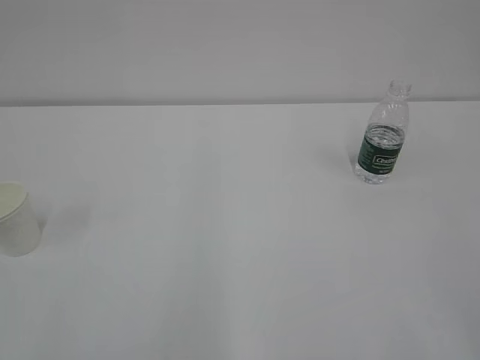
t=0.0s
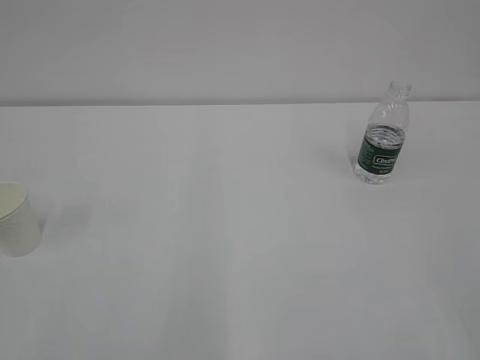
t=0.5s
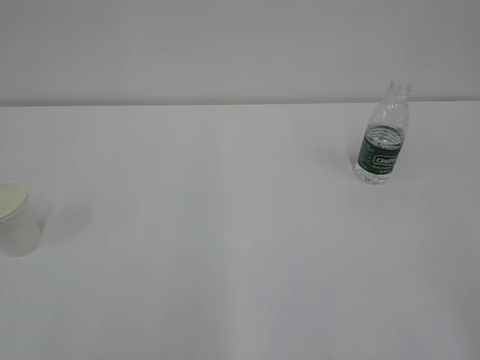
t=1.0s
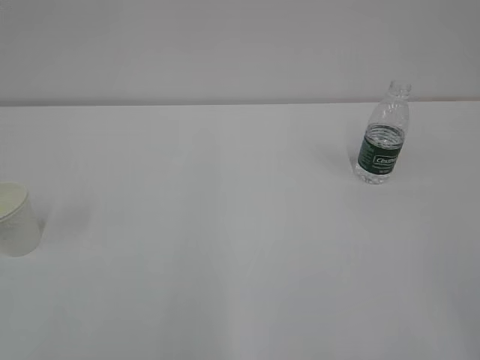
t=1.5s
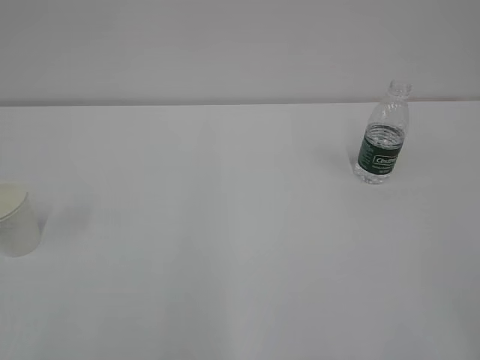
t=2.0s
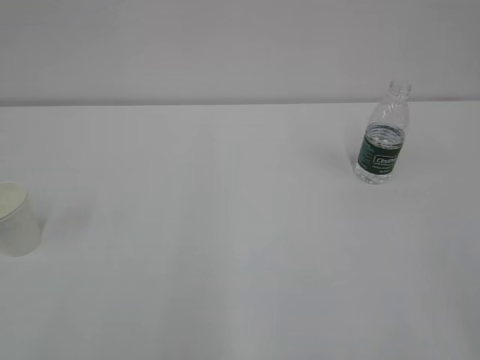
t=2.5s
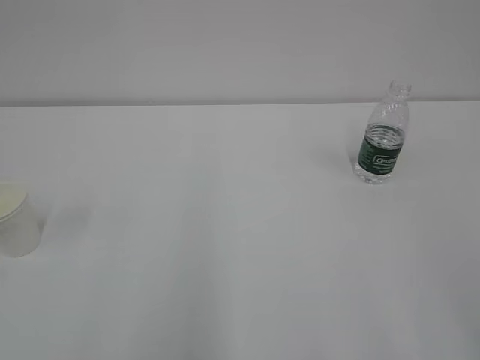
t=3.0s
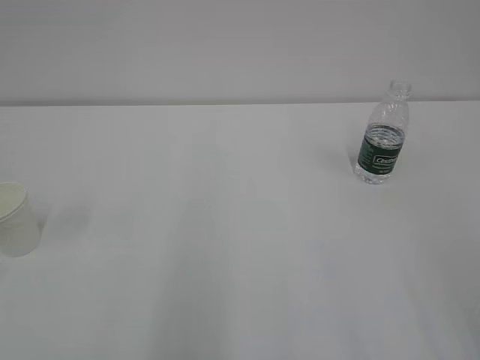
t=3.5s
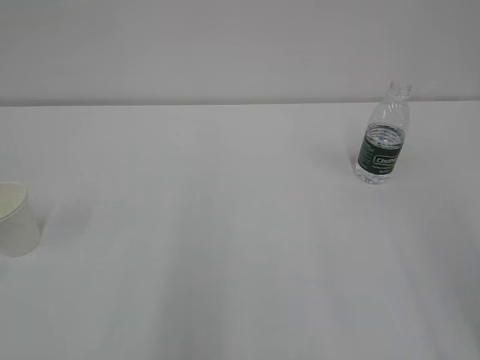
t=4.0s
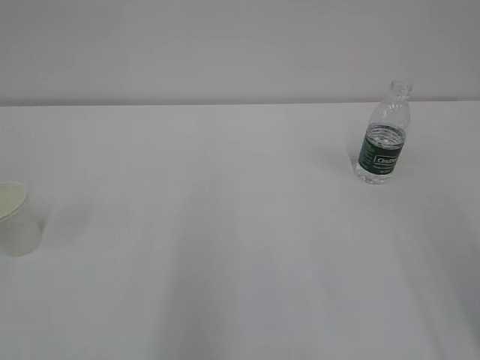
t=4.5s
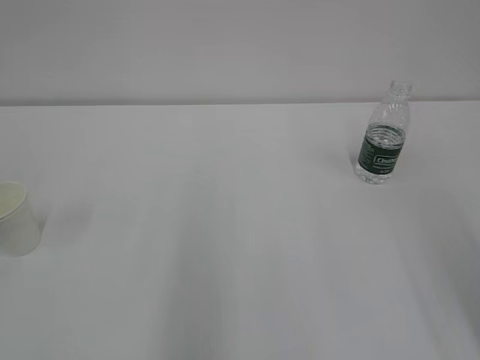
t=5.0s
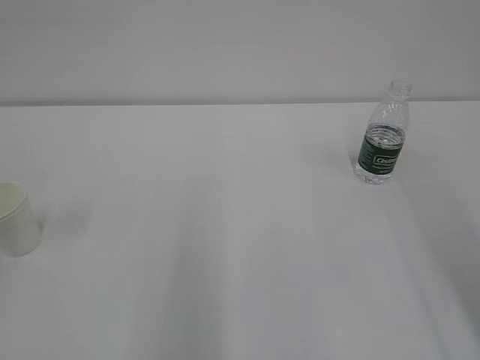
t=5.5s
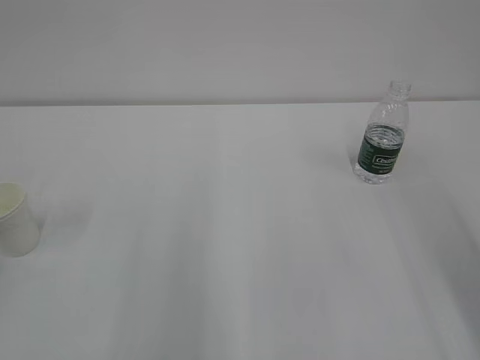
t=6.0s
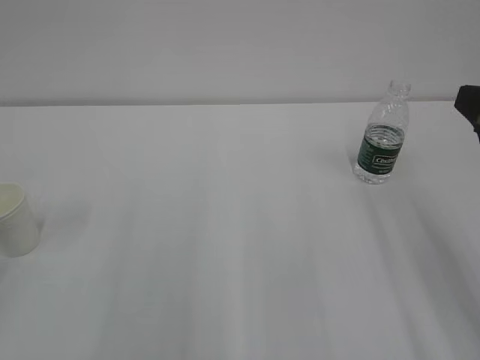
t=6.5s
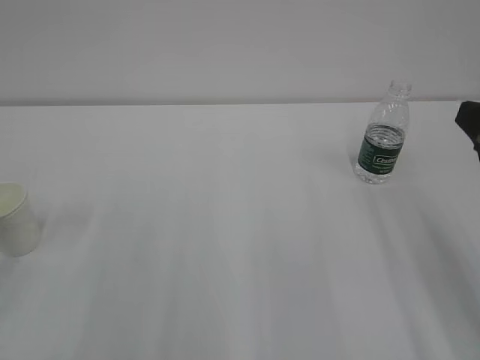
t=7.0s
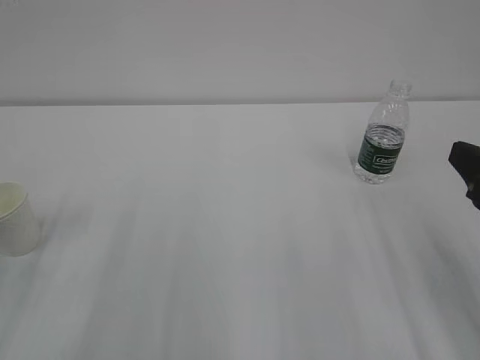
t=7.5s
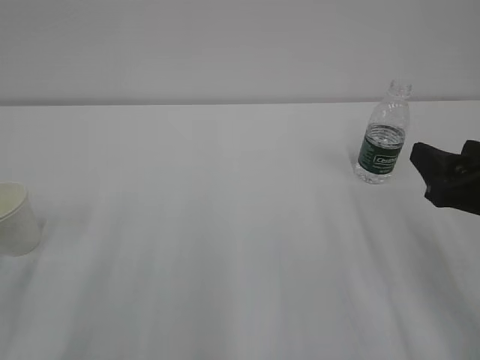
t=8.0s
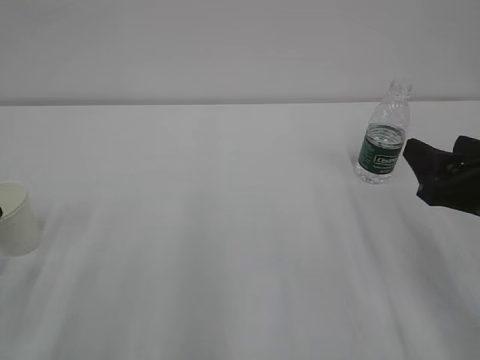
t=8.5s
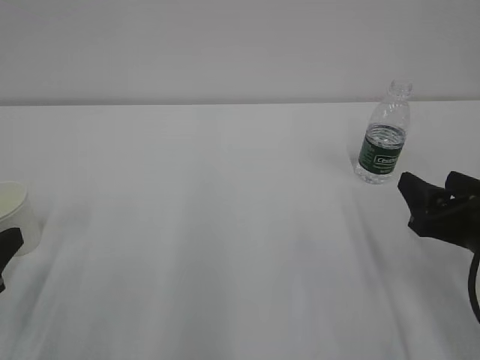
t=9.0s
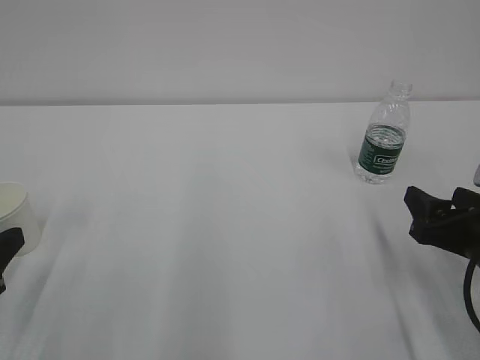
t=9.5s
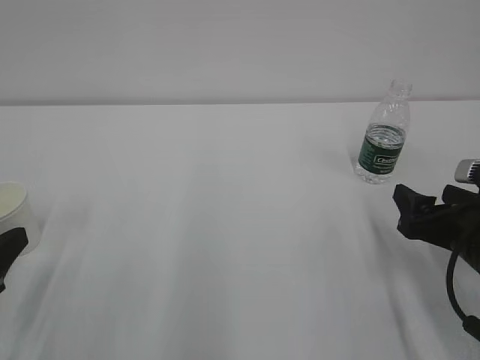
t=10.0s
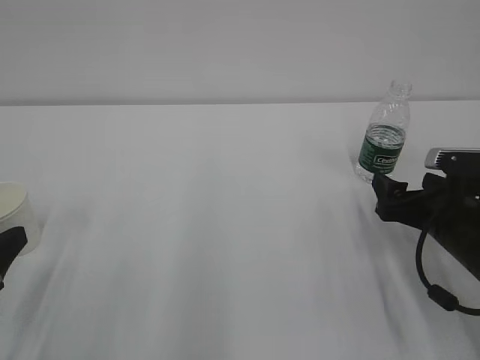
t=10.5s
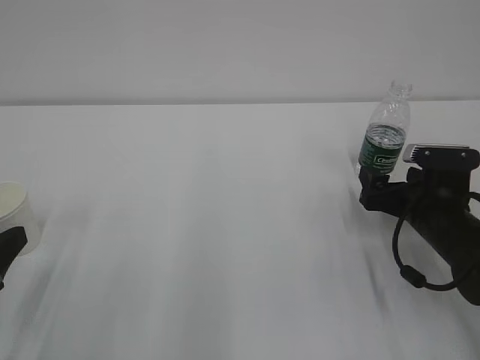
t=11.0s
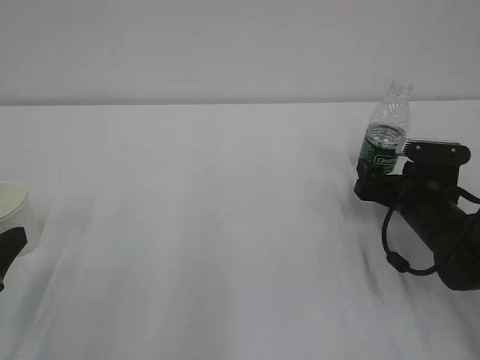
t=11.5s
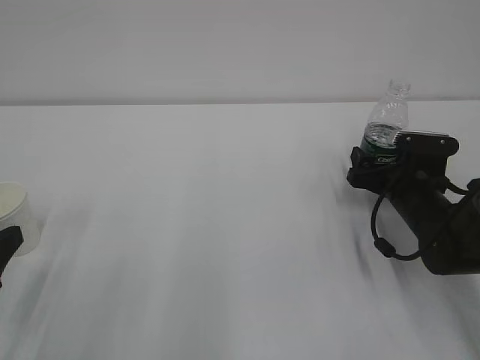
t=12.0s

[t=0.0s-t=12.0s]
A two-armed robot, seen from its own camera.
t=6.0s to t=8.0s: The right gripper heads downward, covering some 10 cm.
t=8.0s to t=10.0s: The right gripper travels downward by roughly 10 cm.
t=10.0s to t=12.0s: The right gripper goes approximately 15 cm forward and downward.

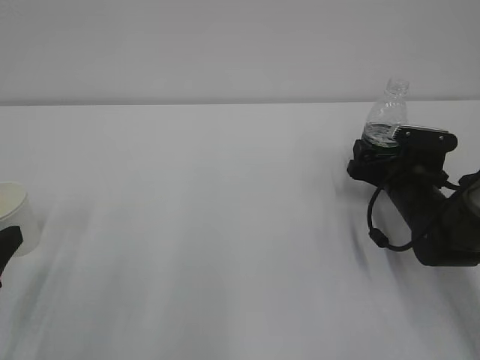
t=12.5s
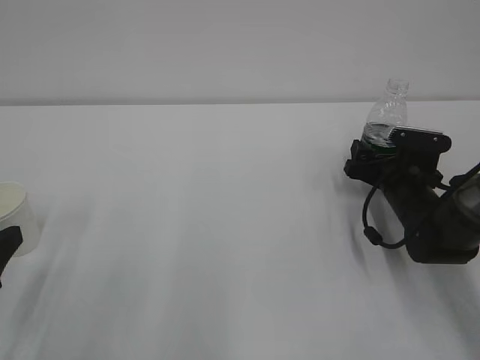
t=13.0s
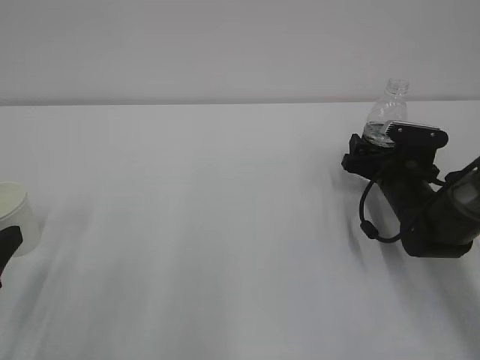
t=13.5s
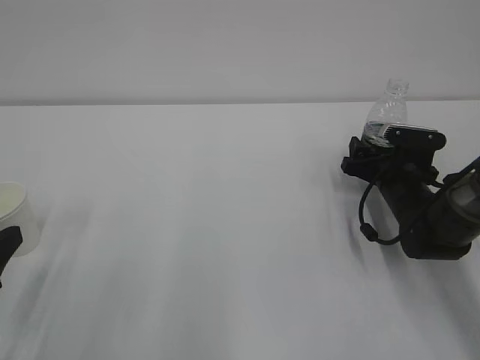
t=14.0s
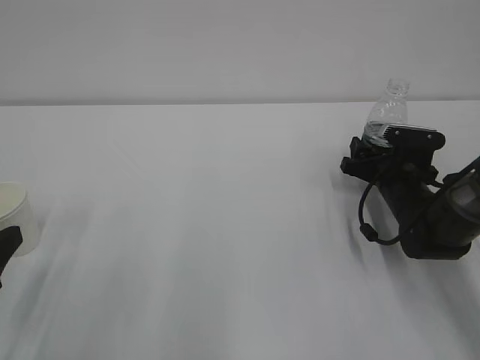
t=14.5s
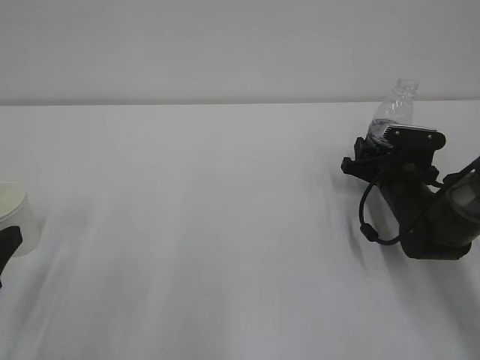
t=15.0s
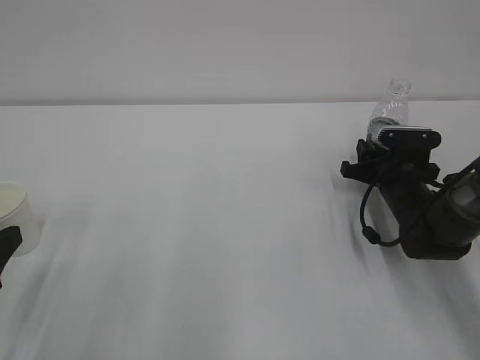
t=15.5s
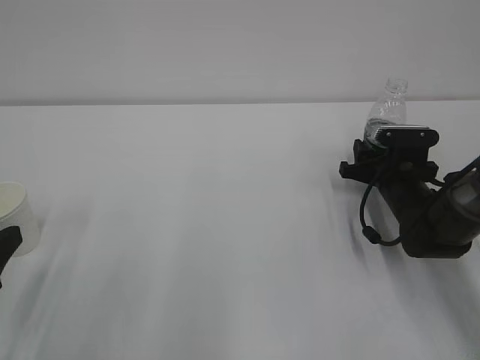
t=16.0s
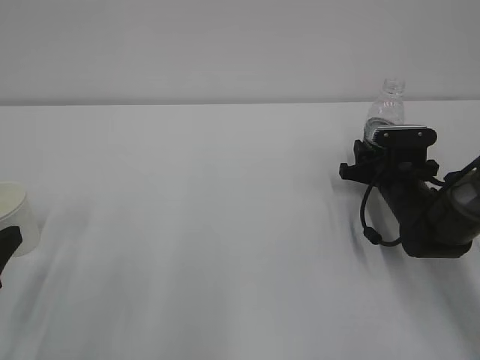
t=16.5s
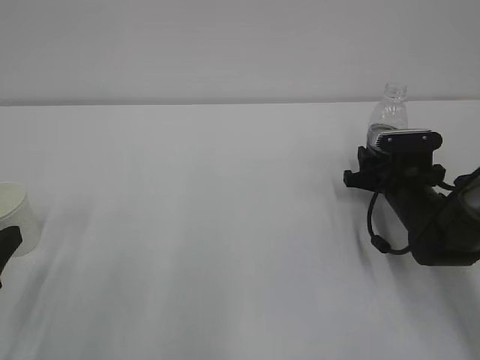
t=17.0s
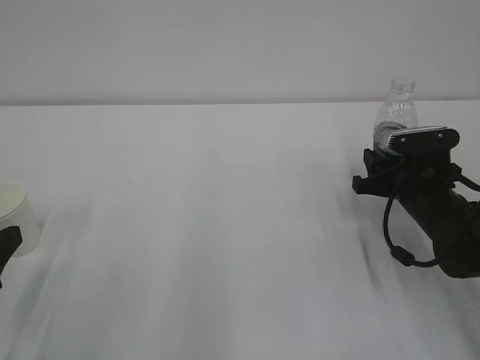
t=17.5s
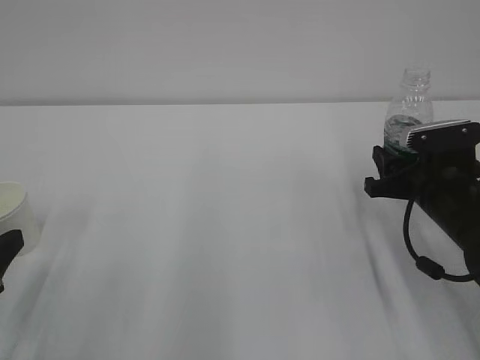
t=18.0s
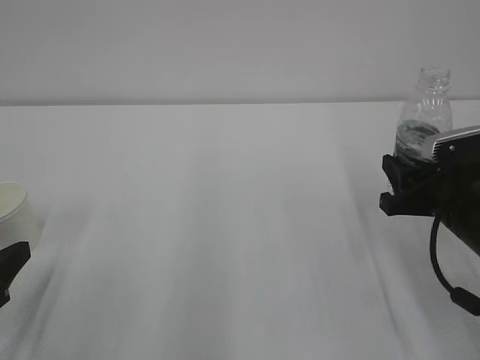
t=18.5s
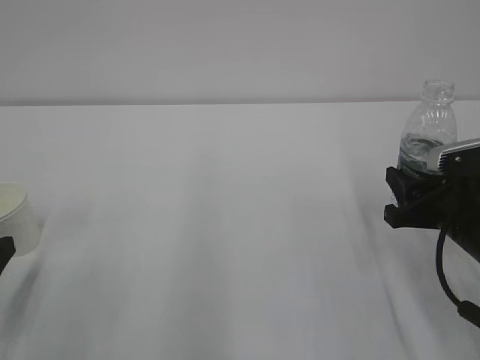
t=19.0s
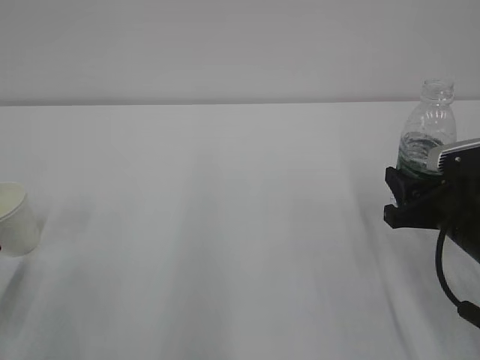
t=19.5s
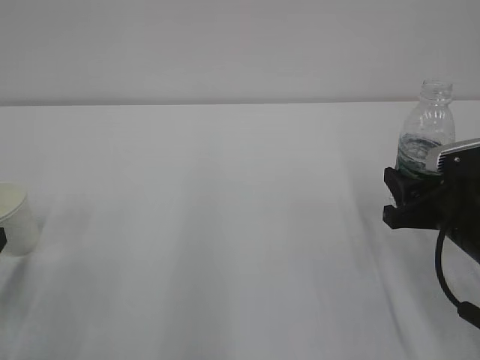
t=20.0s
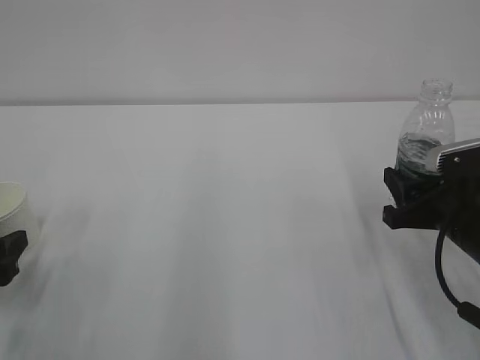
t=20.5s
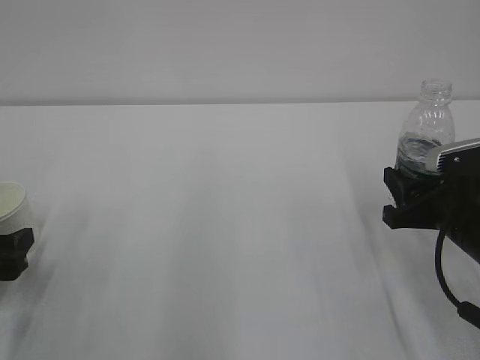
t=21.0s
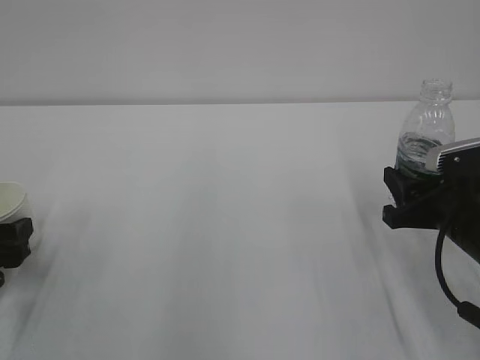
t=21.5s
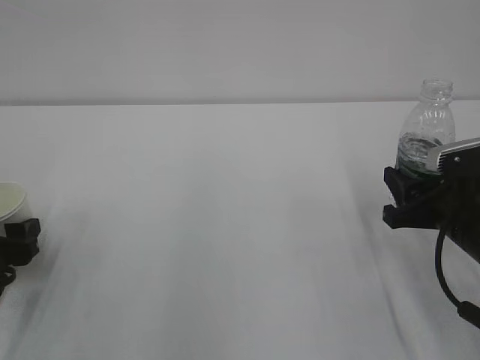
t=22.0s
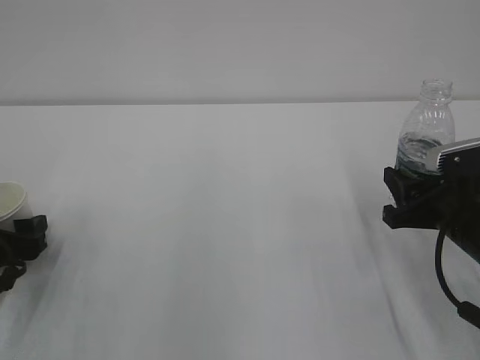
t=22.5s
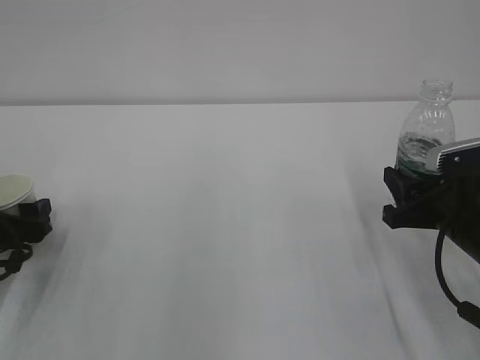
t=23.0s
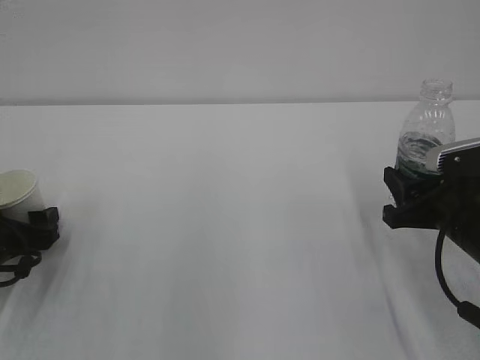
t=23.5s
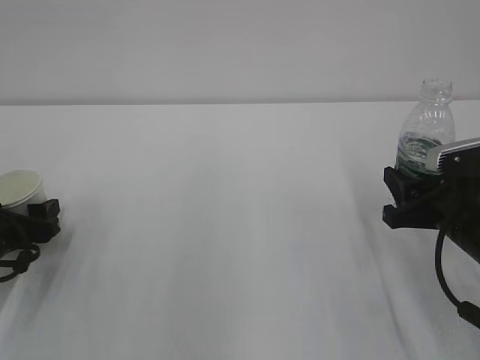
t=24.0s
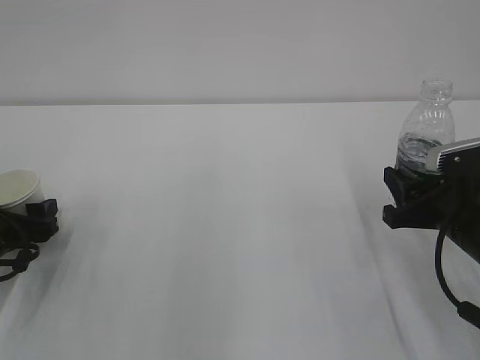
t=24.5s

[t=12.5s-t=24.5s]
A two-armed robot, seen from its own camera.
t=12.5s to t=14.5s: The right gripper closes.
t=14.5s to t=16.5s: The right gripper closes.
t=16.5s to t=18.5s: The right gripper is displaced backward and upward by roughly 15 cm.
t=18.5s to t=20.5s: The left gripper opens up.
t=20.5s to t=22.5s: The left gripper moves forward, some 5 cm.
t=22.5s to t=24.5s: The grippers make only small movements.

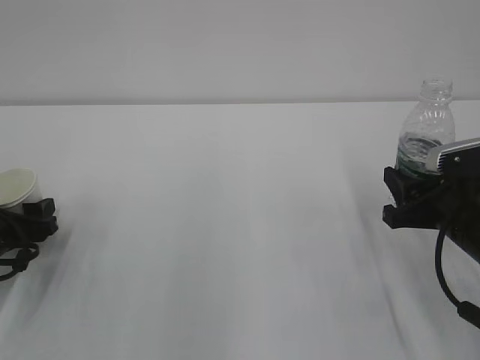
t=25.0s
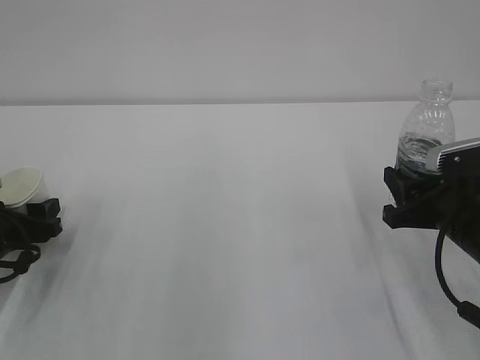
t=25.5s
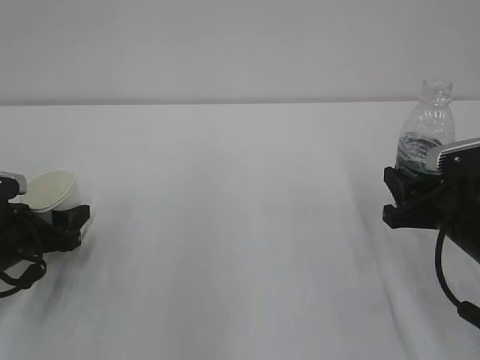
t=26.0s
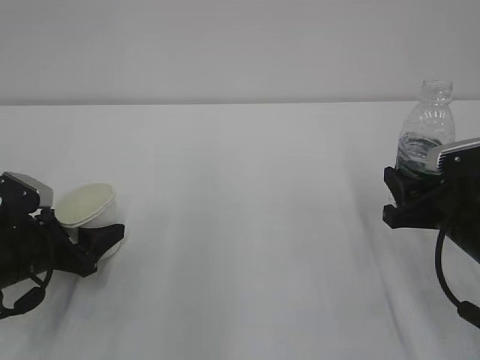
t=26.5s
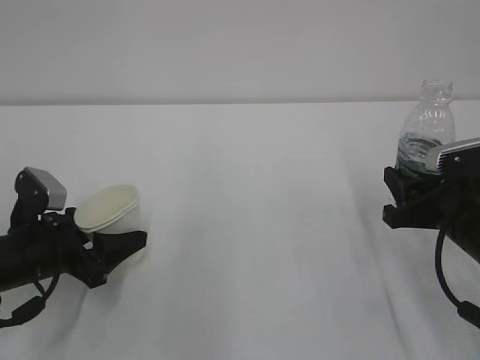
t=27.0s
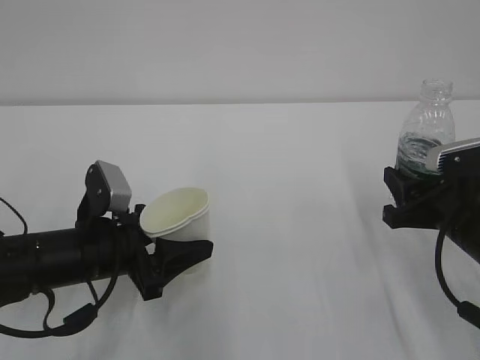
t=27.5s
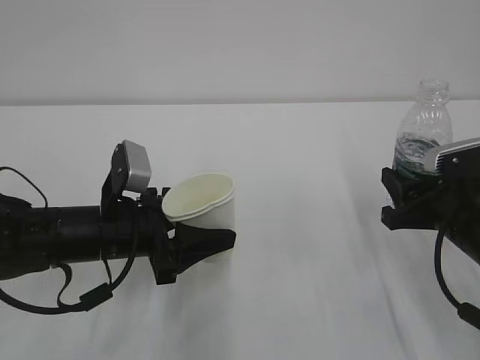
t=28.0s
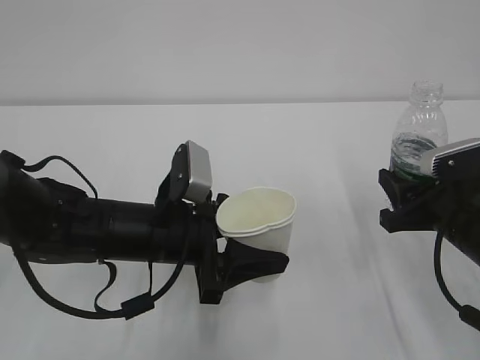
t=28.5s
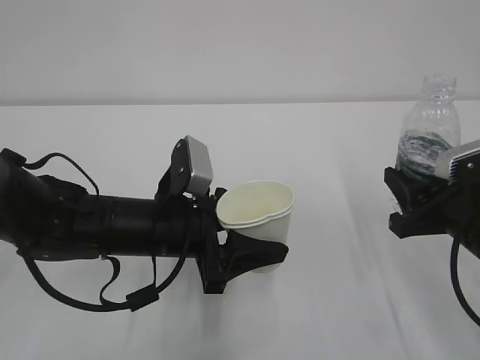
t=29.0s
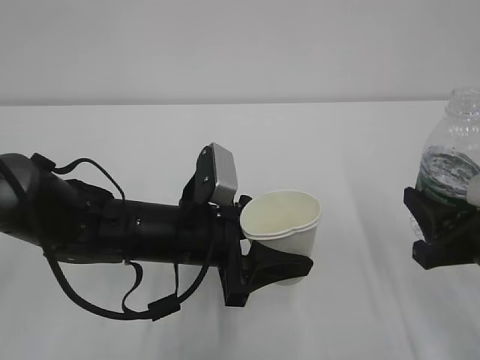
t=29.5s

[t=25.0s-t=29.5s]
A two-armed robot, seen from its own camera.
t=25.0s to t=27.0s: The left gripper is displaced to the right by some 5 cm.
t=27.0s to t=29.5s: The right gripper moves backward, about 5 cm. The left gripper moves to the right, approximately 20 cm.
